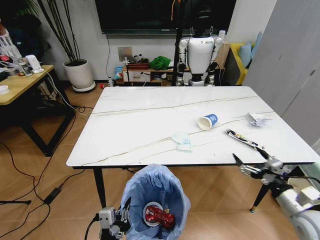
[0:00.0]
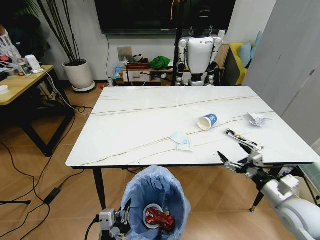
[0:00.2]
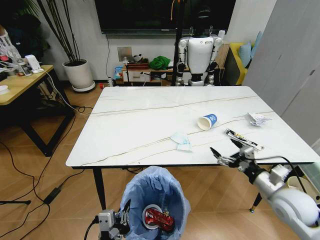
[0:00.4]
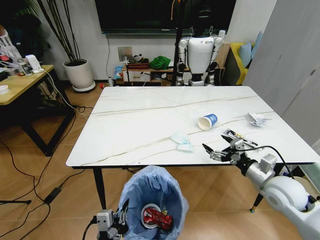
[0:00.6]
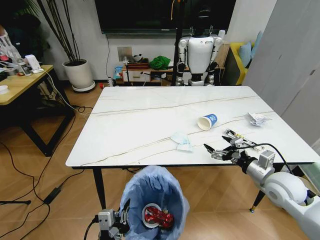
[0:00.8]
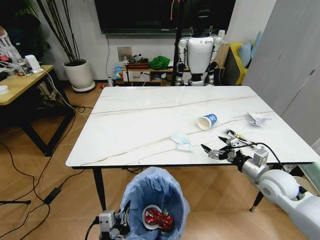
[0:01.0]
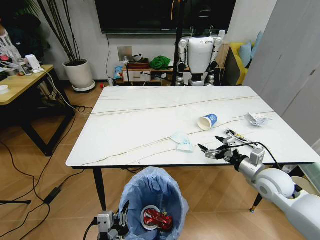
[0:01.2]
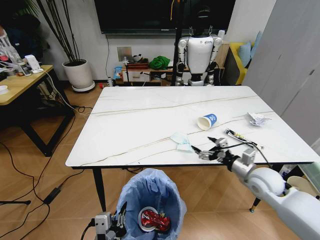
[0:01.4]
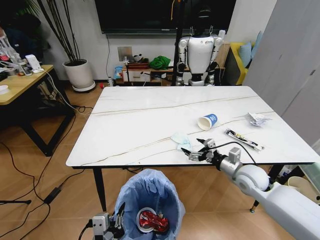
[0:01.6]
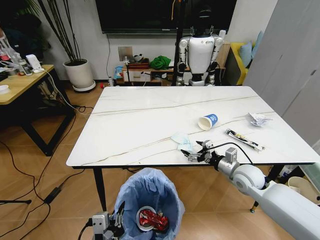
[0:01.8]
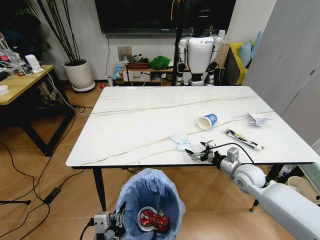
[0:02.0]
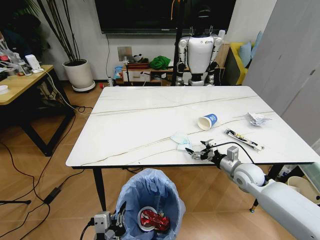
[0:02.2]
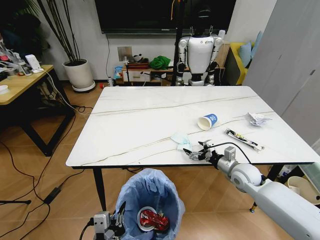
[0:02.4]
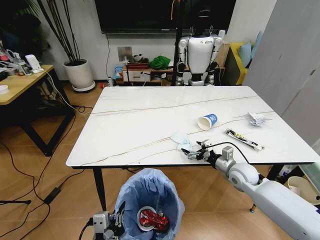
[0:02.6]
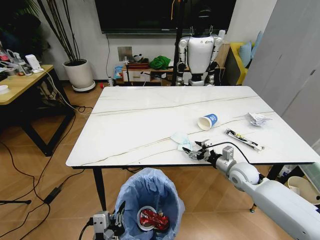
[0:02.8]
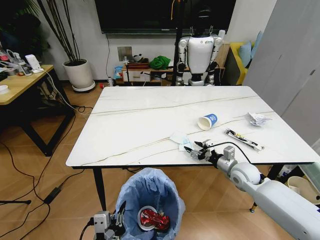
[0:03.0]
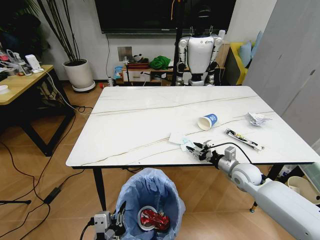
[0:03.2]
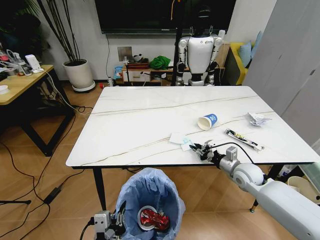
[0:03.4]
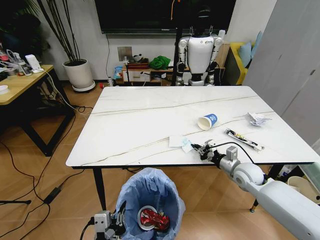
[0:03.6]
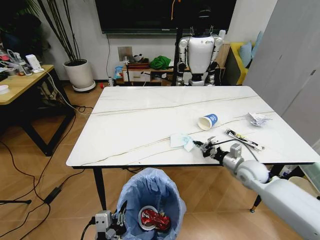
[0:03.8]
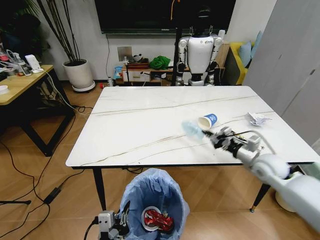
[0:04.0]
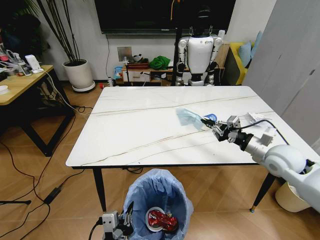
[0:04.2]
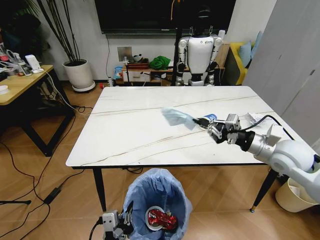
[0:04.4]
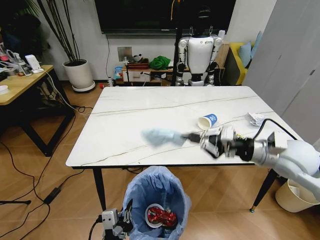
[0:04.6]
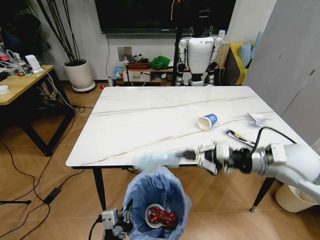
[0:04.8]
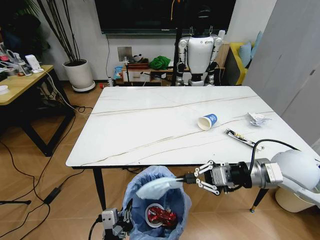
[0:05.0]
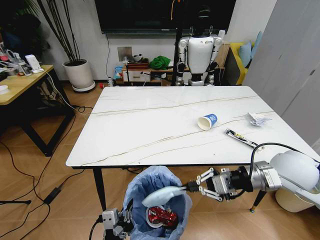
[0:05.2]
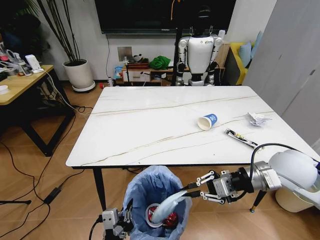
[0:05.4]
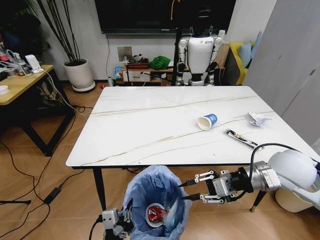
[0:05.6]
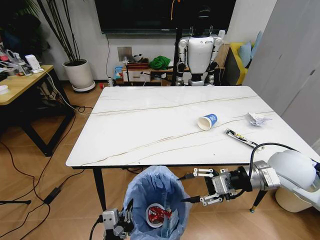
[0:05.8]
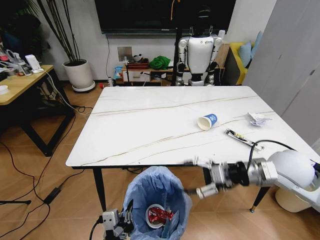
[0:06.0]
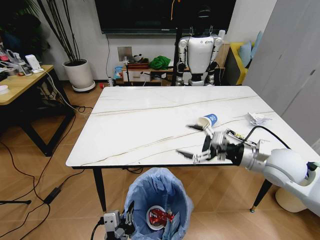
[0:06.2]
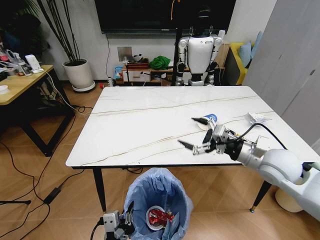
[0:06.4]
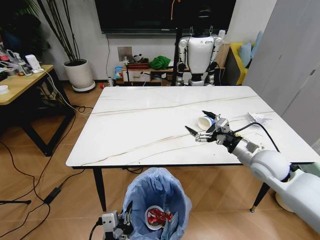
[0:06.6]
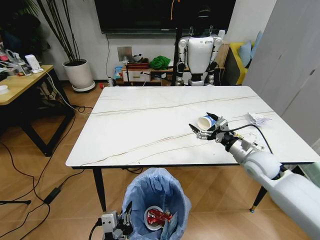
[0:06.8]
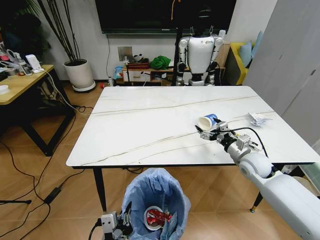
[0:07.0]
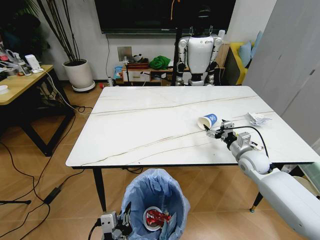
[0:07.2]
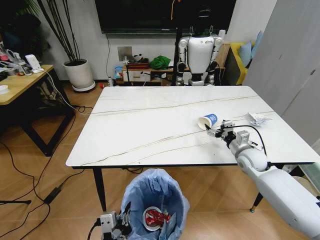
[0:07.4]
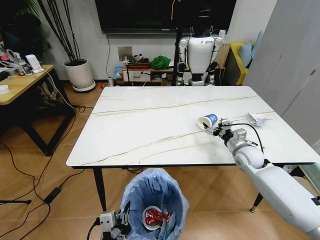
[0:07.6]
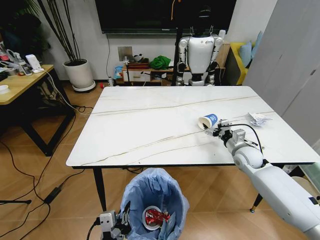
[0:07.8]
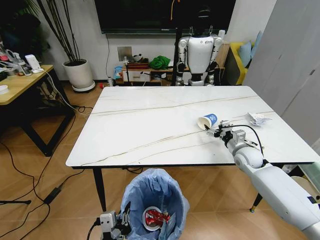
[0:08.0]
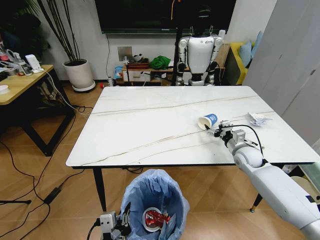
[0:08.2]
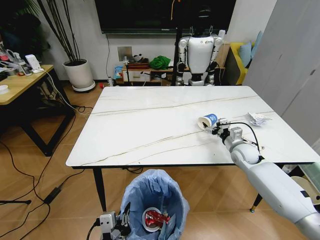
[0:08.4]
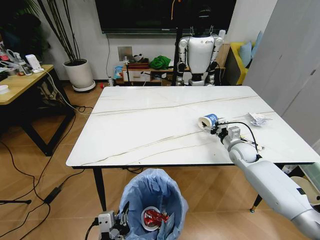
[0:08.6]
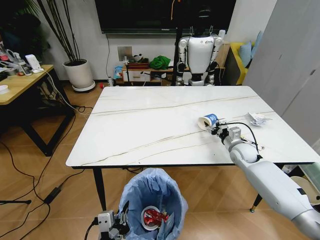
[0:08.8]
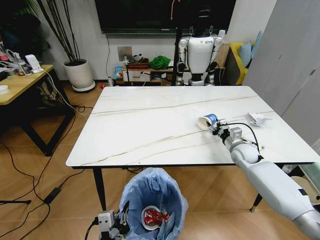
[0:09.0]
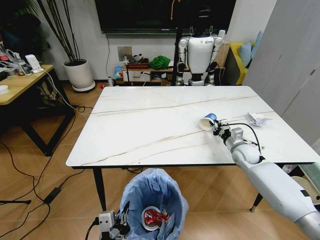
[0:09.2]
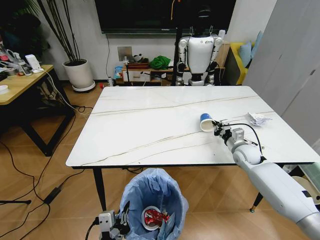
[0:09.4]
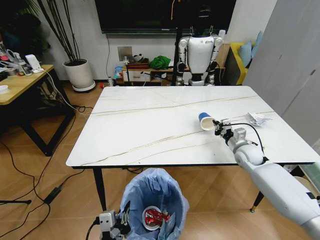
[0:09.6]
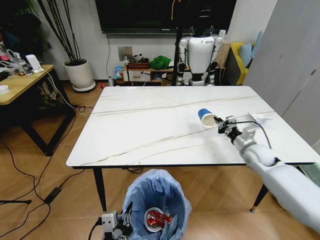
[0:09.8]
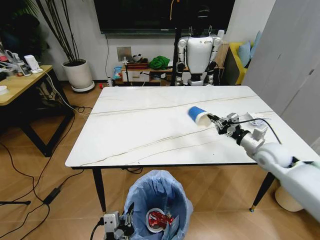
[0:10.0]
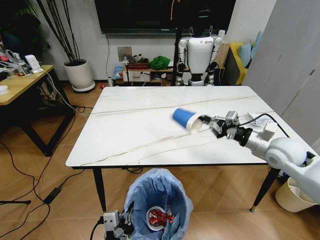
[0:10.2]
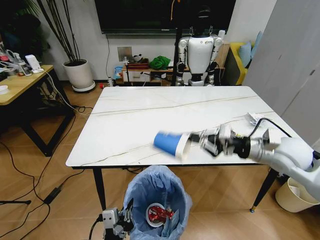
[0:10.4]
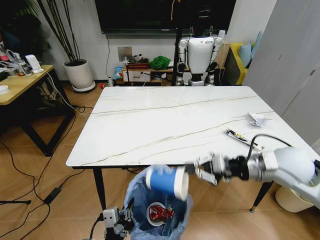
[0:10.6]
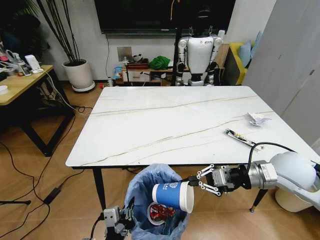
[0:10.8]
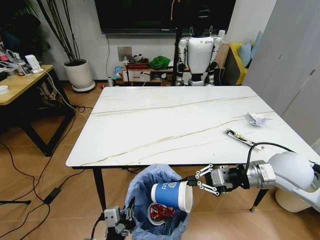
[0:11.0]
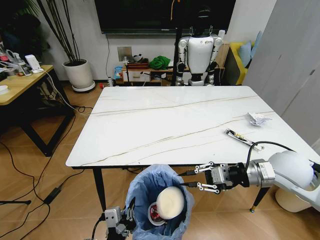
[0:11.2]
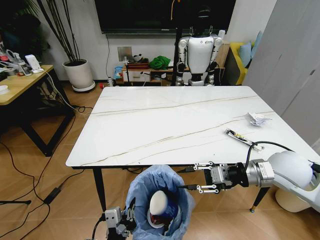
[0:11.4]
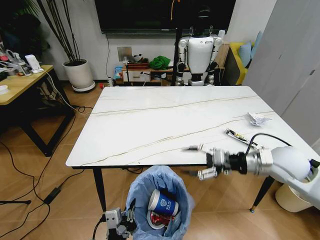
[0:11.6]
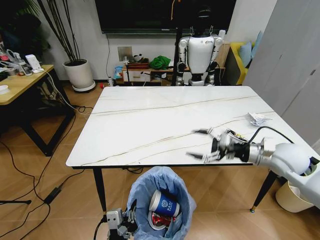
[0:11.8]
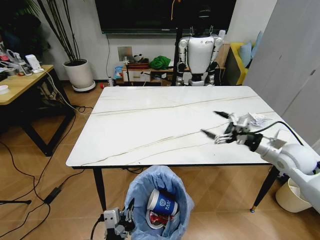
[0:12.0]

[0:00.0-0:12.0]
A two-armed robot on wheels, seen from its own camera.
Task of the whole recording: Pick up the trash bin and place the trash from the table into it.
0:00.0 to 0:01.6: The right gripper moves forward and to the left, about 20 cm.
0:01.6 to 0:03.0: The right gripper ends up some 5 cm from where it was.
0:03.0 to 0:04.4: The right gripper moves upward, about 15 cm, and closes its fingers.
0:04.4 to 0:06.0: The right gripper moves some 5 cm, and opens.
0:06.0 to 0:07.6: The right gripper moves downward and forward, about 20 cm.
0:07.6 to 0:09.0: The right gripper closes its fingers.
0:09.0 to 0:10.4: The right gripper moves upward and backward, some 20 cm, and closes.
0:10.4 to 0:12.0: The right gripper moves to the right and downward, approximately 10 cm, and opens up.

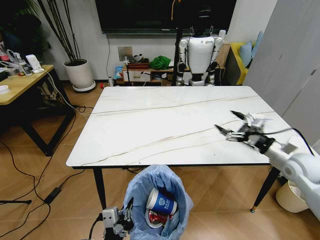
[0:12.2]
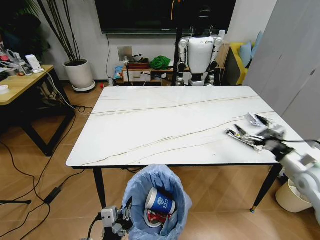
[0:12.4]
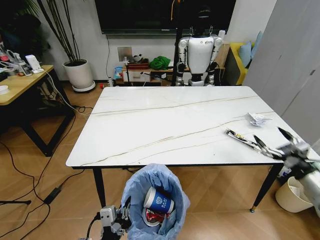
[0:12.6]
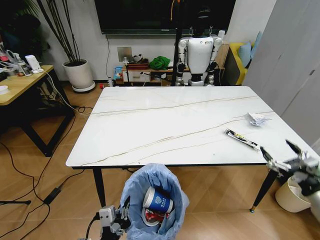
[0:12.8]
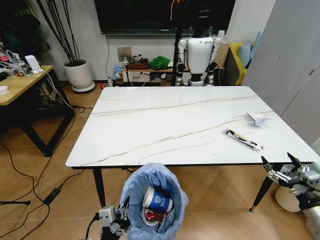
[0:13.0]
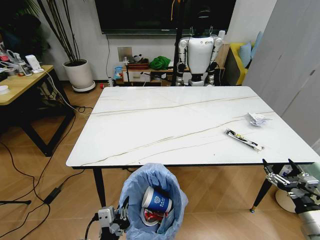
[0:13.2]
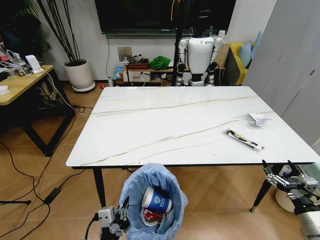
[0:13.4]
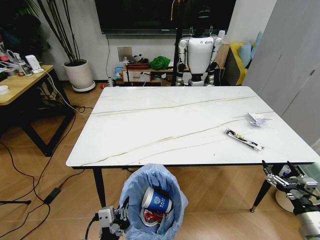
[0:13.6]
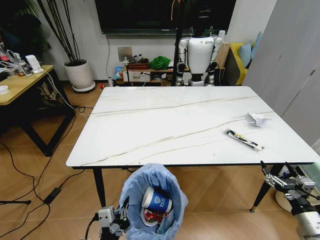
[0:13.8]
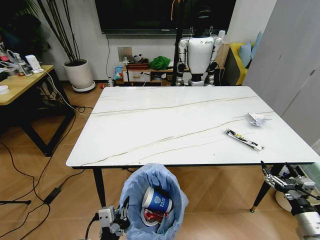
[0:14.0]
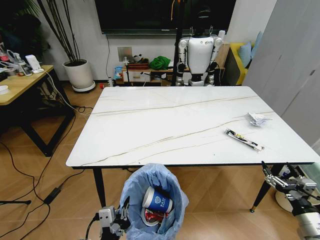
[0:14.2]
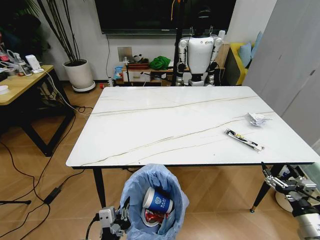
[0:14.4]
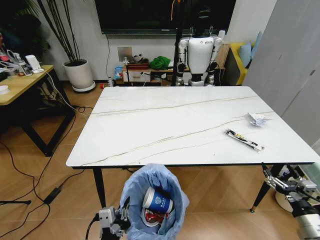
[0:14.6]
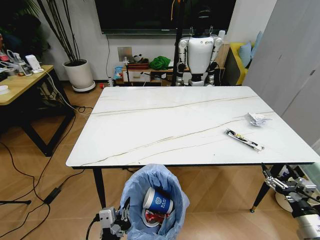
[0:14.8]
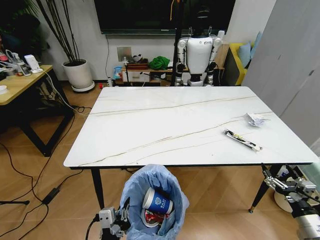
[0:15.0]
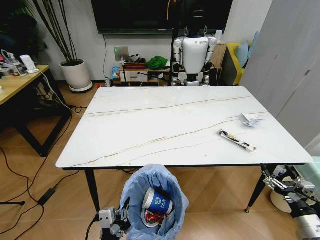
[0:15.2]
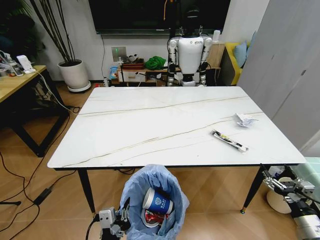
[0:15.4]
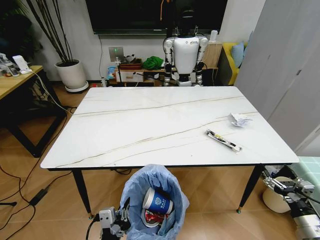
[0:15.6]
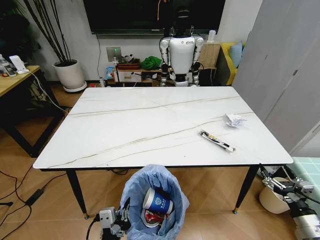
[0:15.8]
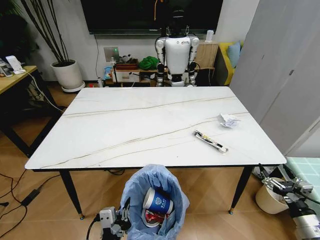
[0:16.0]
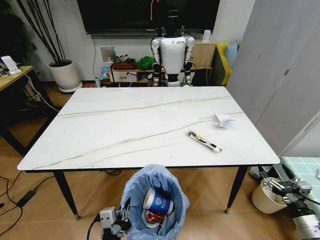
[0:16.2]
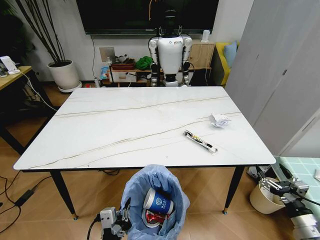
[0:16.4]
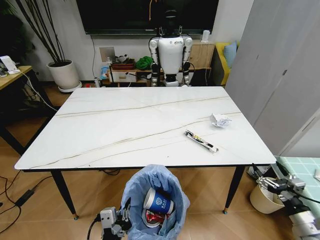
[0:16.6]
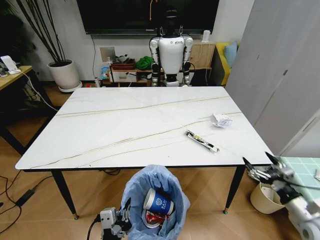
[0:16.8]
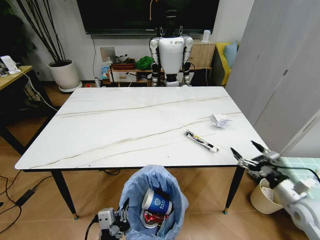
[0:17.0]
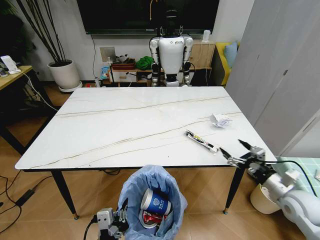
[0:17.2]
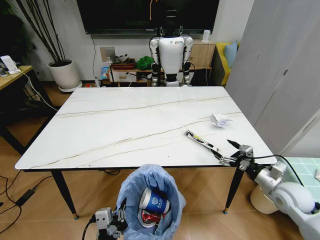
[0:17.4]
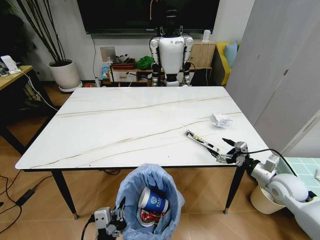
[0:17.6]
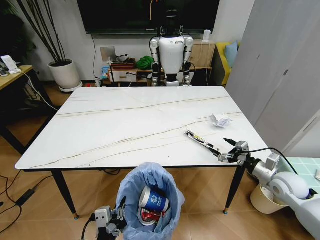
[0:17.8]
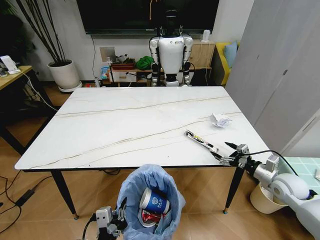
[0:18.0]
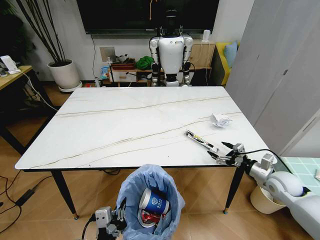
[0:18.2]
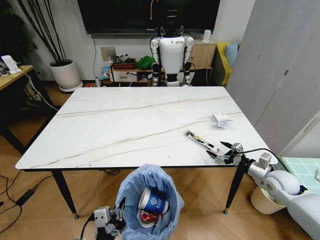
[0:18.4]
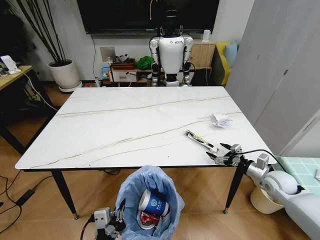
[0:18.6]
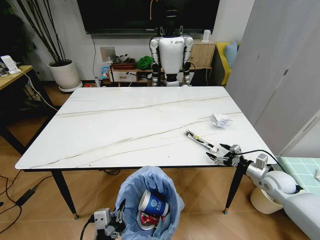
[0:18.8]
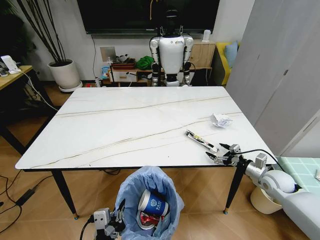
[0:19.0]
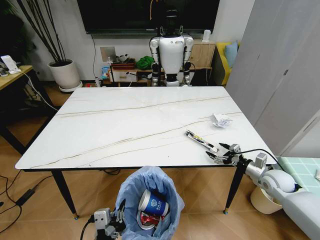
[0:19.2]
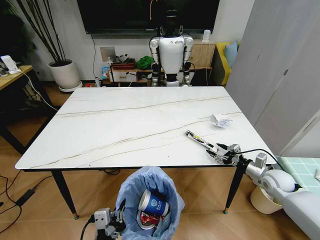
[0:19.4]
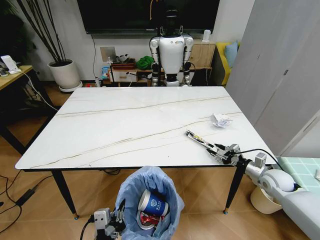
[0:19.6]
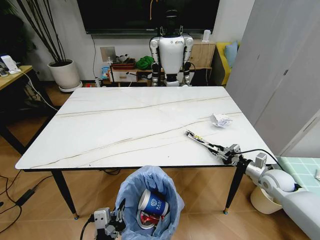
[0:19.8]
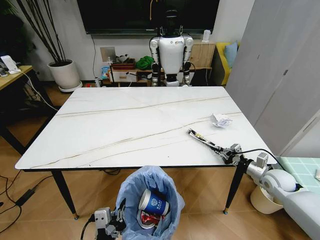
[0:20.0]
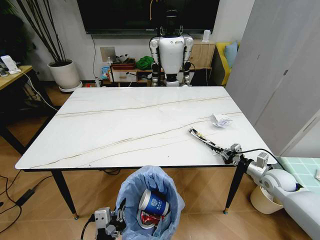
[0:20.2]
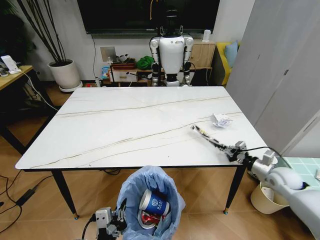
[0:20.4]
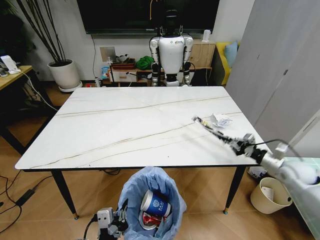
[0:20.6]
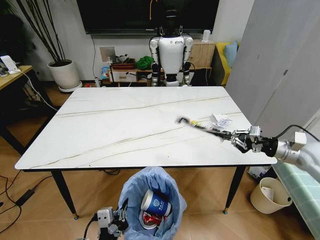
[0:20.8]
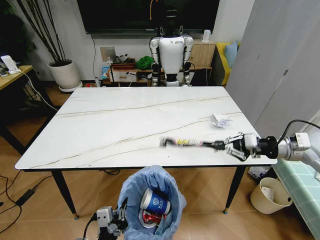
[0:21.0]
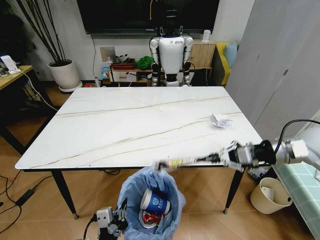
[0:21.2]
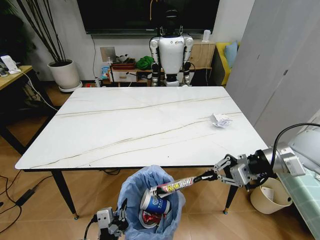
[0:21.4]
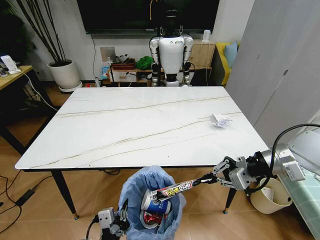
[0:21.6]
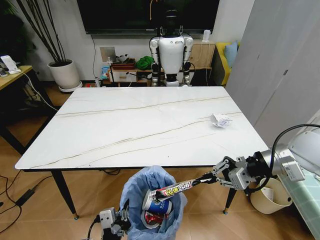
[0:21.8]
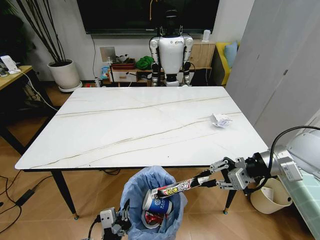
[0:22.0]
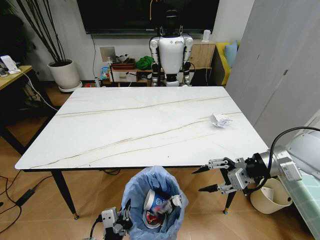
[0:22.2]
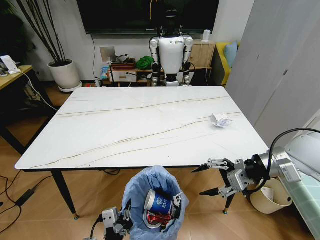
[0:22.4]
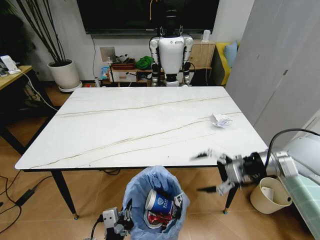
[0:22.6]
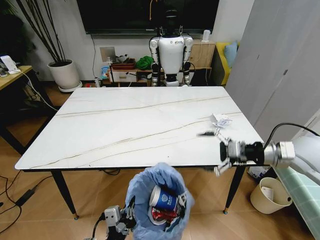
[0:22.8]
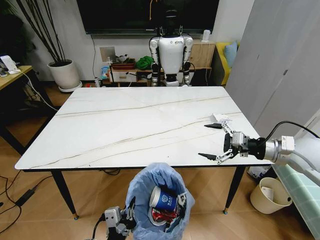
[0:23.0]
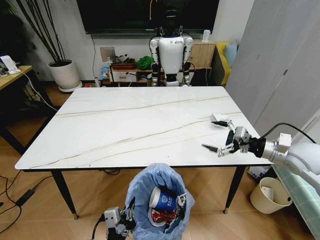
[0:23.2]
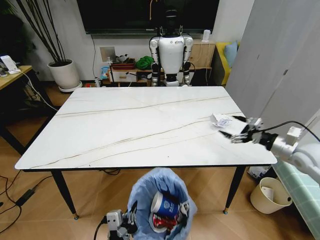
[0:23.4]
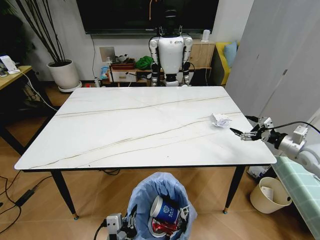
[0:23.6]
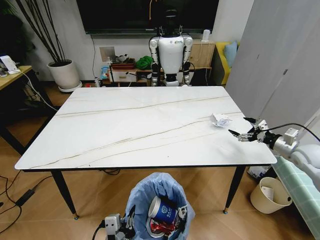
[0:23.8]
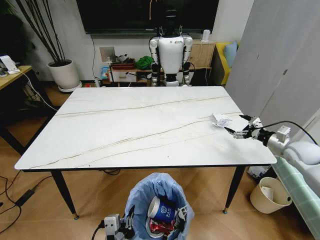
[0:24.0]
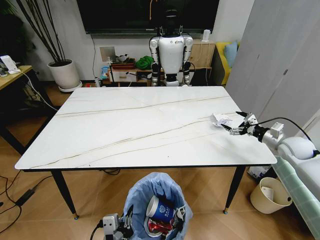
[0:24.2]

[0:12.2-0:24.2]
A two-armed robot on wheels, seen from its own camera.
Task of the whole recording: Pick up the trash bin and place the trash from the table into it.
0:12.2 to 0:13.8: The right gripper is displaced backward and downward by roughly 25 cm.
0:16.6 to 0:18.2: The right gripper moves forward, some 20 cm.
0:18.2 to 0:19.8: The right gripper closes up.
0:19.8 to 0:21.2: The right gripper shifts some 25 cm upward.
0:21.2 to 0:22.6: The right gripper opens up.
0:22.6 to 0:24.2: The right gripper travels to the right, downward and forward by some 25 cm.
